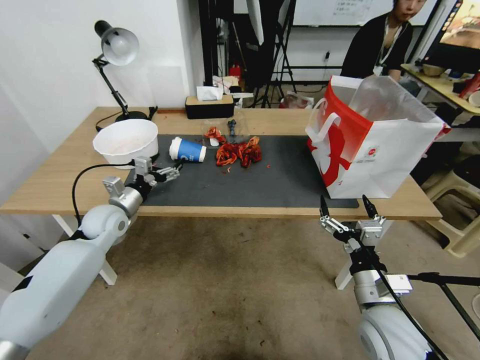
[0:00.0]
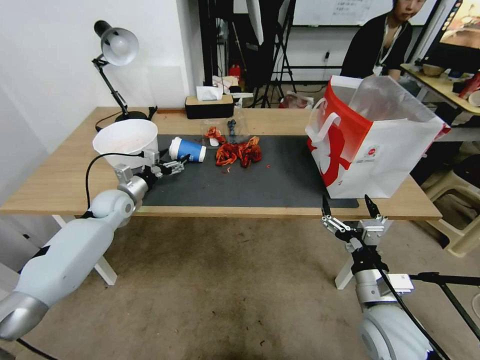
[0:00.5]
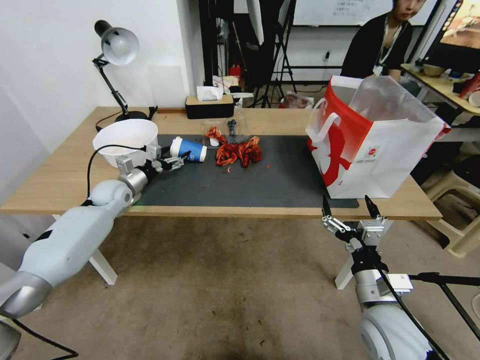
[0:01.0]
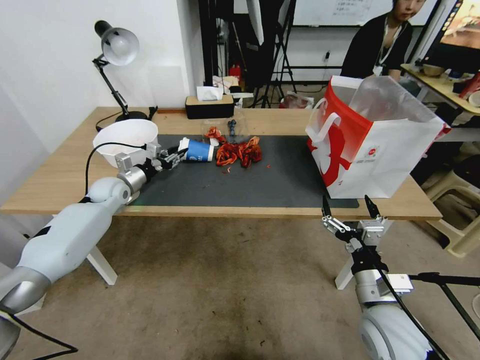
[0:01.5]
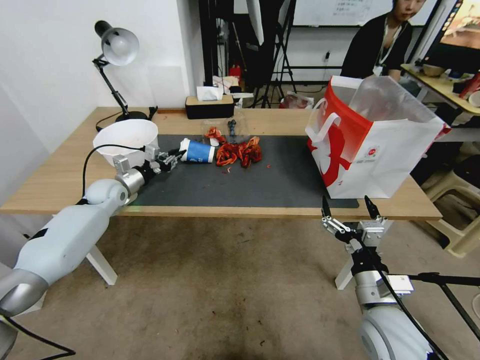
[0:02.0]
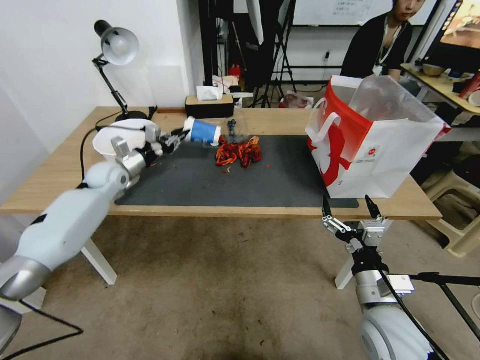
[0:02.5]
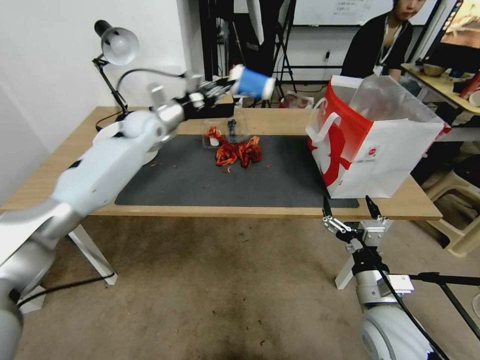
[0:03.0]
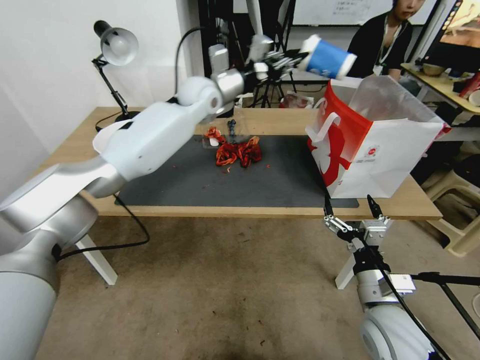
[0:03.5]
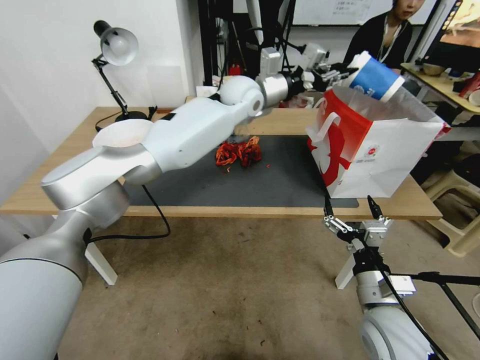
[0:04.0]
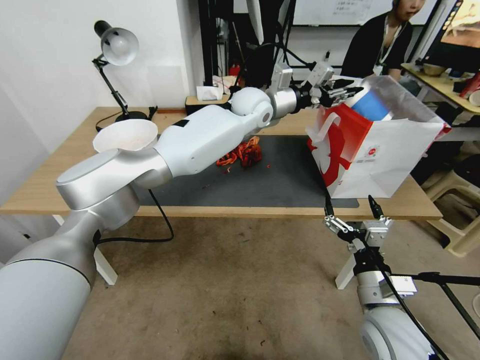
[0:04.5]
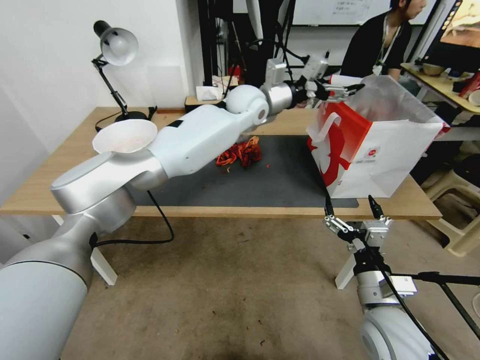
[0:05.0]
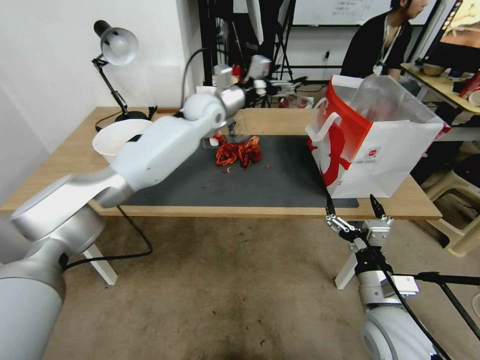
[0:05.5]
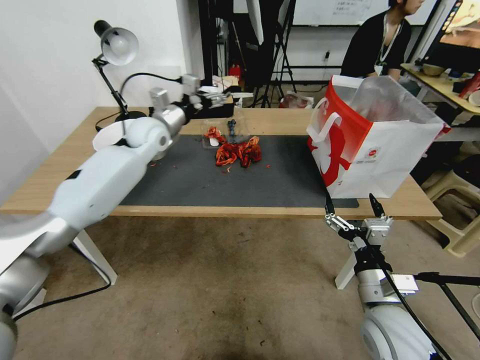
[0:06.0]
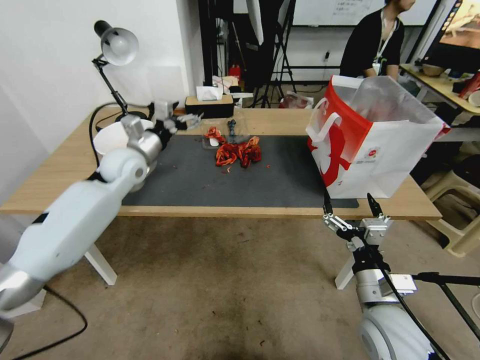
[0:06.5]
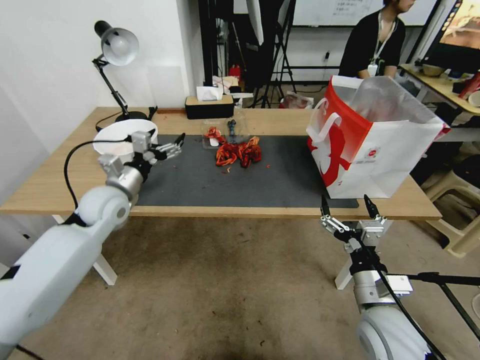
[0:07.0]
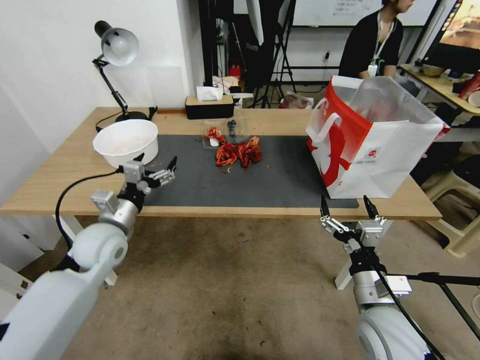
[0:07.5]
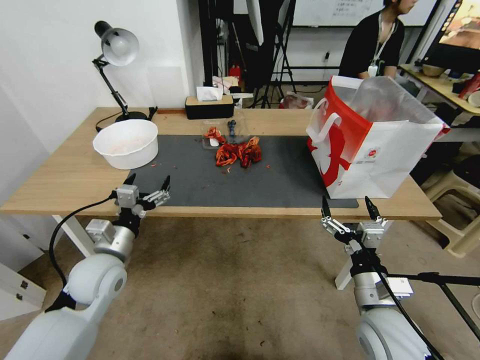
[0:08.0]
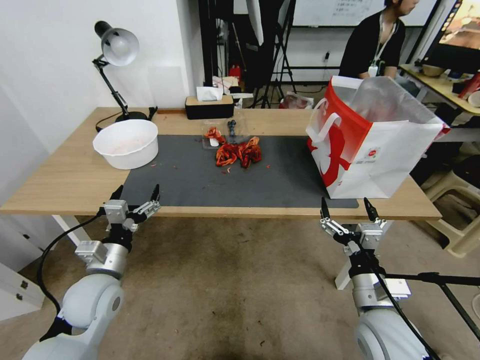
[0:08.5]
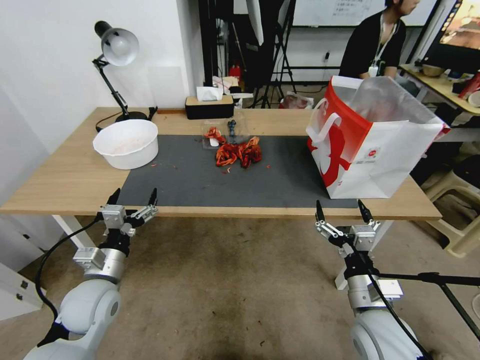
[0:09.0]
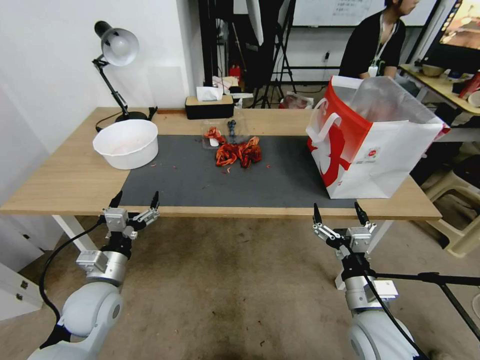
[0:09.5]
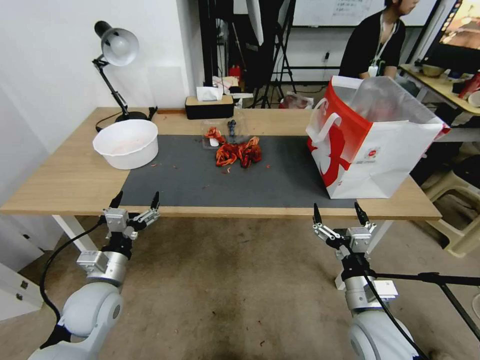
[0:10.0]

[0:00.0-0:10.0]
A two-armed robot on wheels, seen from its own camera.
0:00.0 to 0:02.0: The left gripper is displaced forward by about 10 cm, and closes its fingers.
0:02.0 to 0:04.0: The left gripper heads to the right and upward, covering some 50 cm.
0:04.0 to 0:06.0: The left gripper heads to the left, covering about 25 cm, and opens up.
0:06.0 to 0:08.0: The left gripper is displaced backward and downward by roughly 30 cm.
0:08.0 to 0:10.0: The left gripper changes place by approximately 5 cm.
